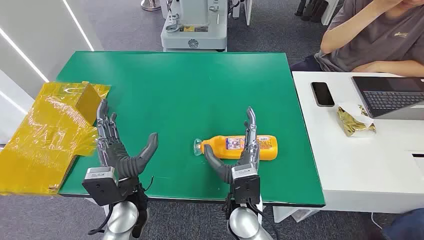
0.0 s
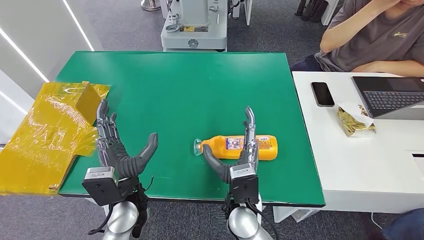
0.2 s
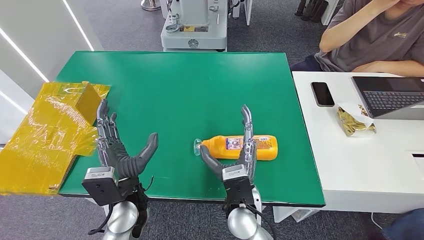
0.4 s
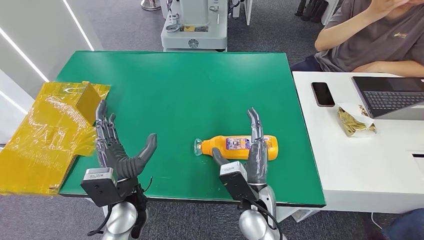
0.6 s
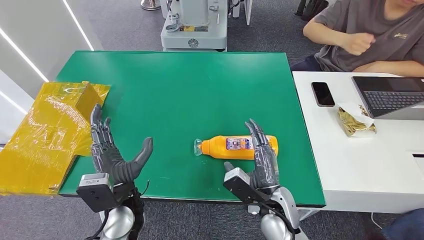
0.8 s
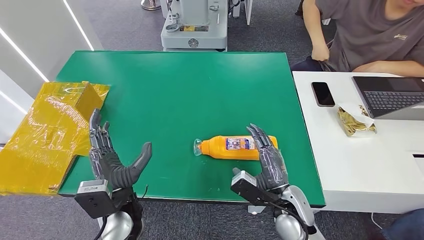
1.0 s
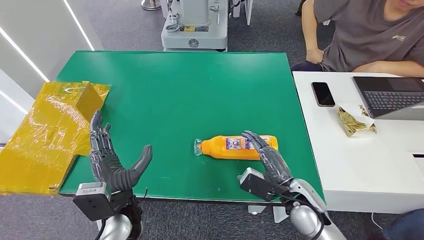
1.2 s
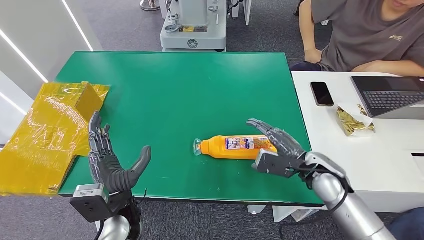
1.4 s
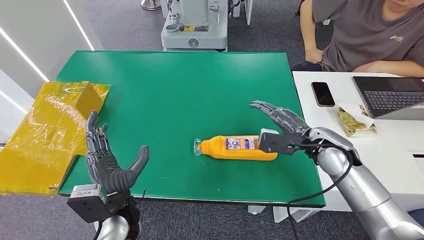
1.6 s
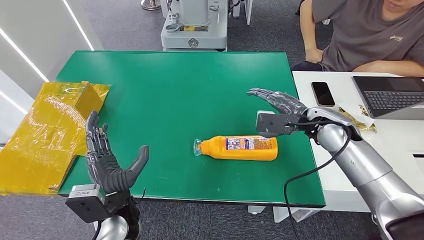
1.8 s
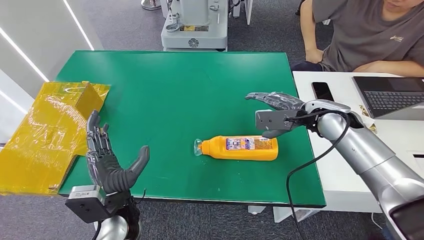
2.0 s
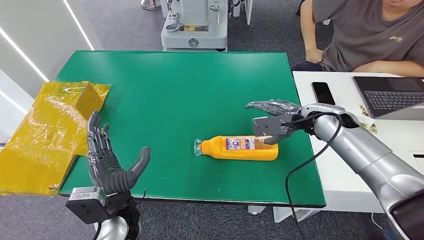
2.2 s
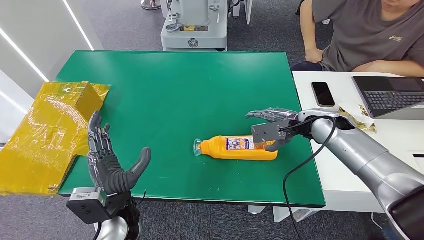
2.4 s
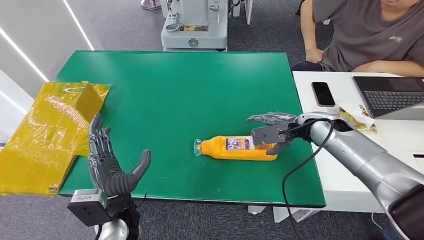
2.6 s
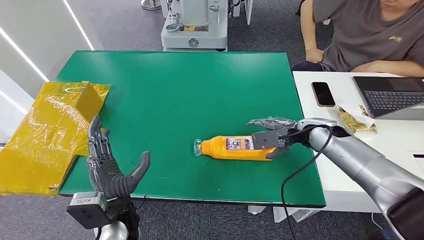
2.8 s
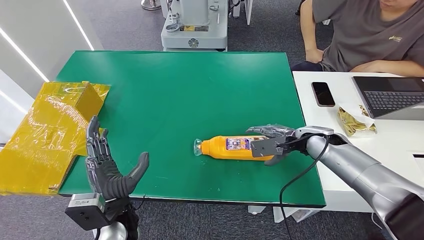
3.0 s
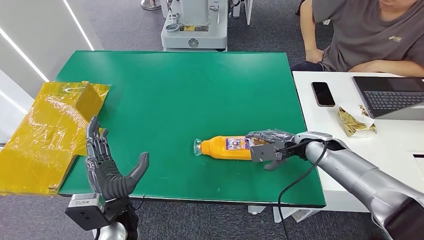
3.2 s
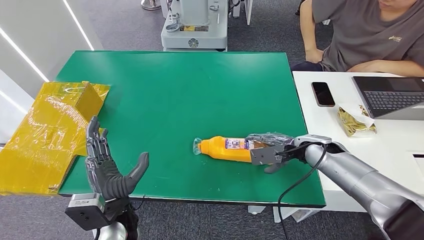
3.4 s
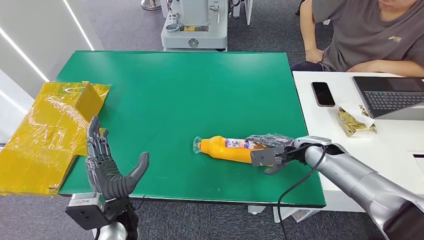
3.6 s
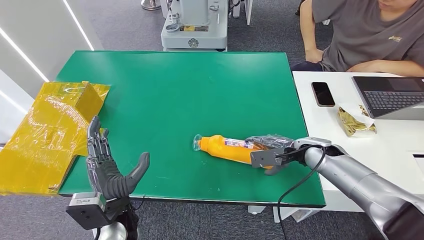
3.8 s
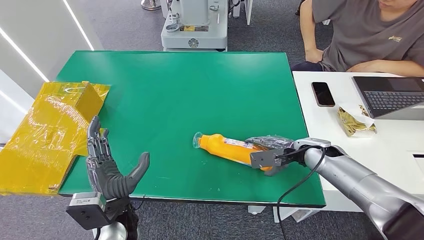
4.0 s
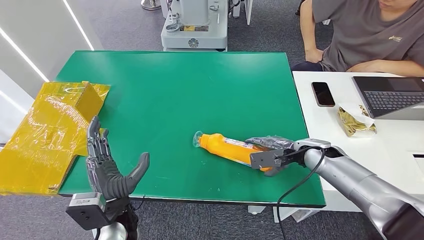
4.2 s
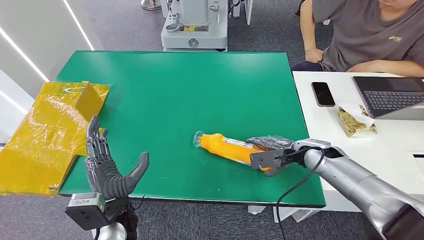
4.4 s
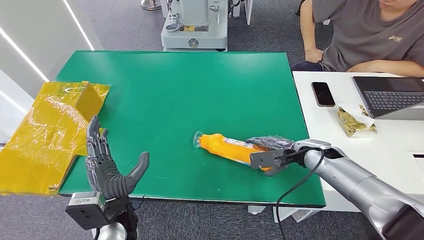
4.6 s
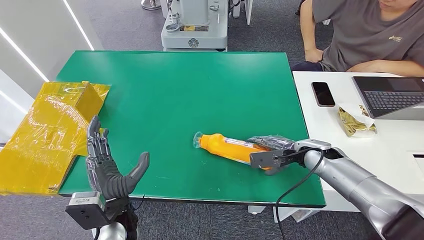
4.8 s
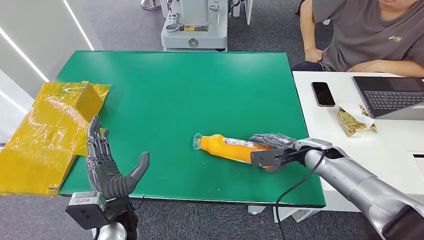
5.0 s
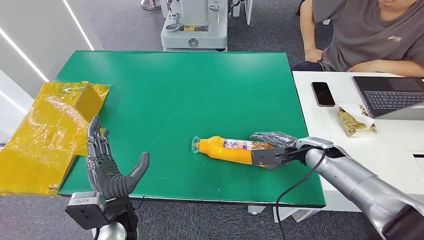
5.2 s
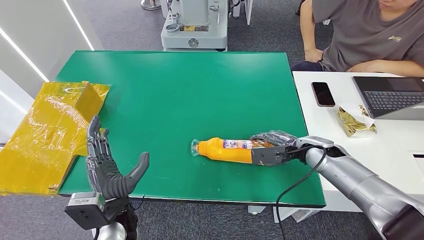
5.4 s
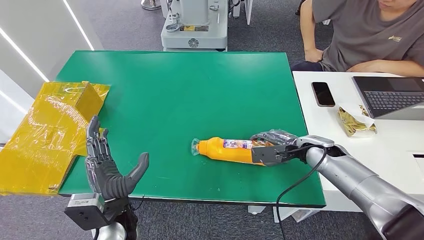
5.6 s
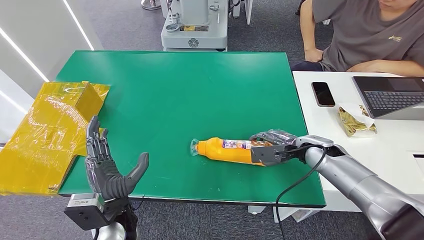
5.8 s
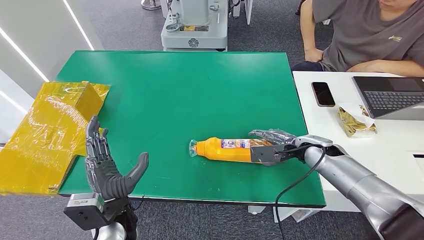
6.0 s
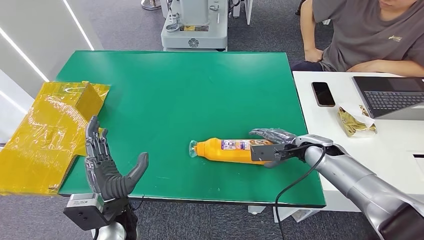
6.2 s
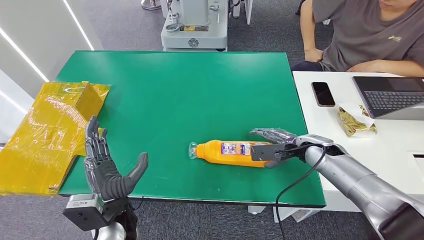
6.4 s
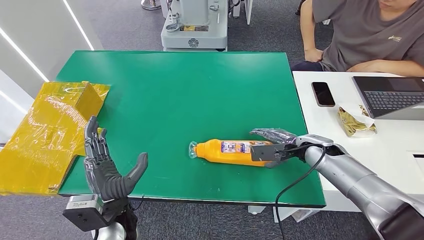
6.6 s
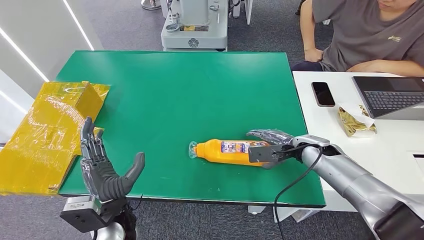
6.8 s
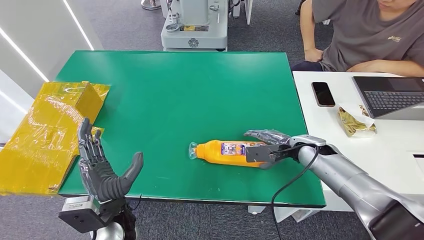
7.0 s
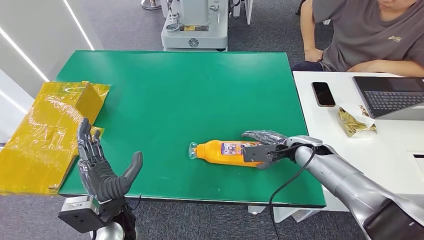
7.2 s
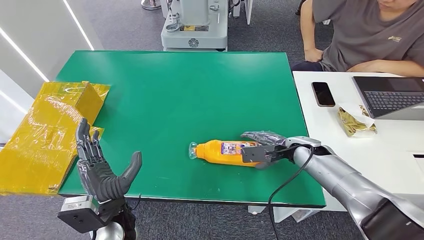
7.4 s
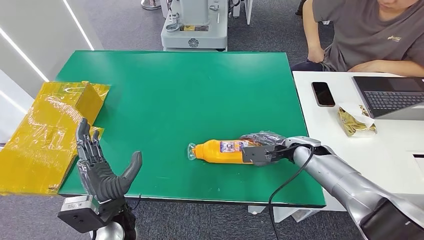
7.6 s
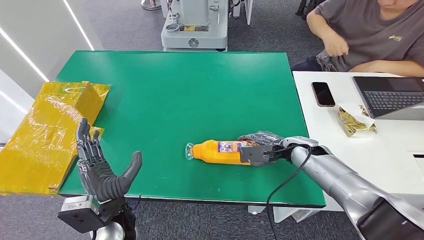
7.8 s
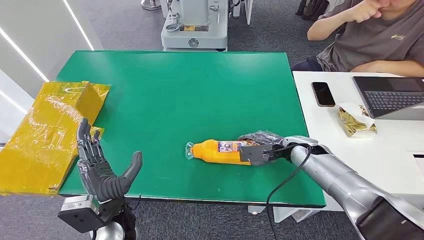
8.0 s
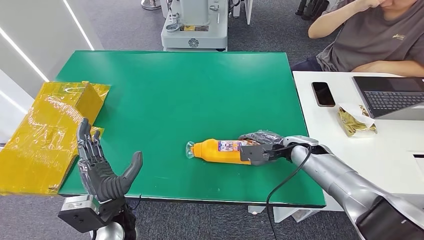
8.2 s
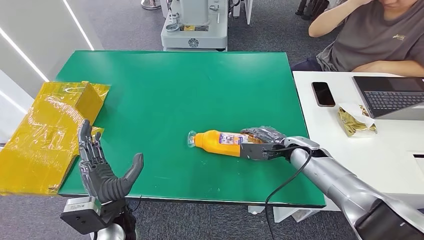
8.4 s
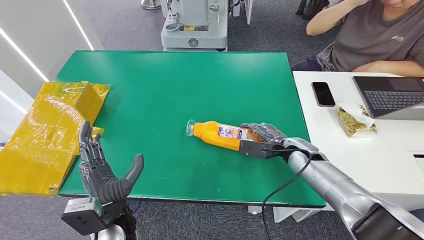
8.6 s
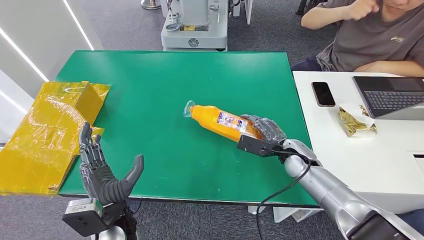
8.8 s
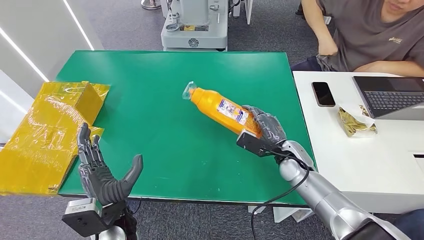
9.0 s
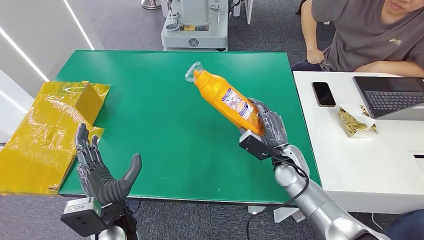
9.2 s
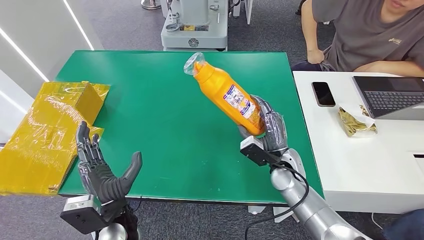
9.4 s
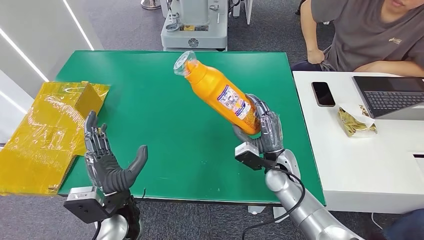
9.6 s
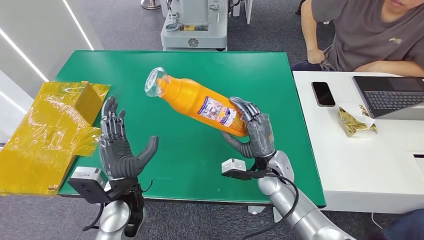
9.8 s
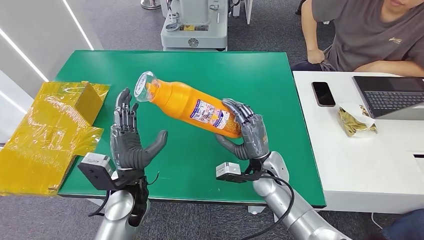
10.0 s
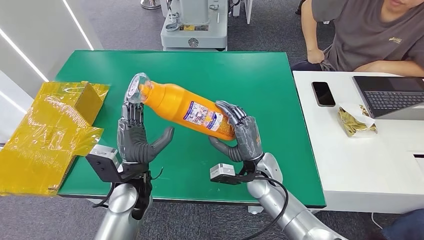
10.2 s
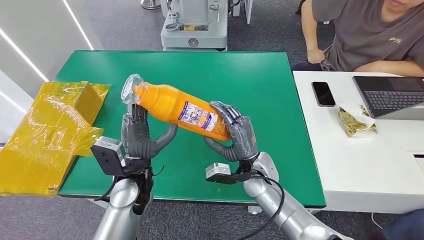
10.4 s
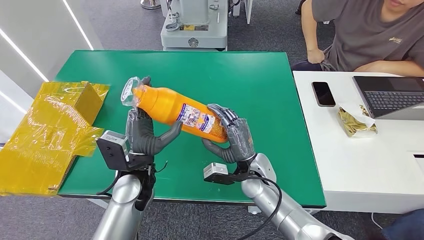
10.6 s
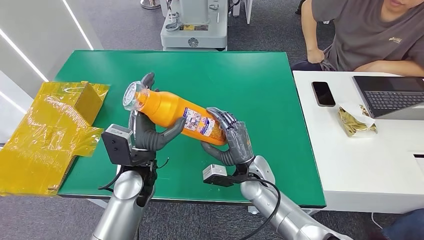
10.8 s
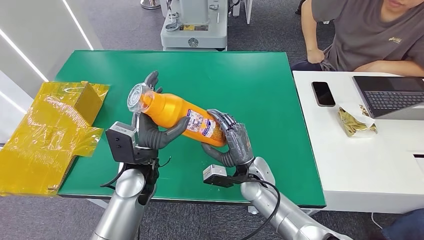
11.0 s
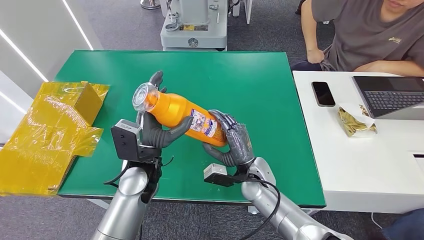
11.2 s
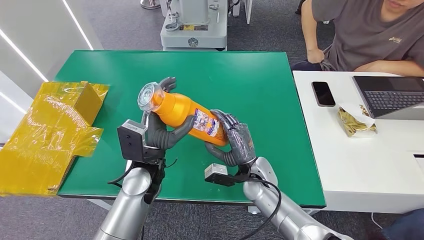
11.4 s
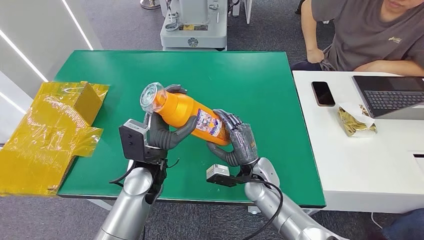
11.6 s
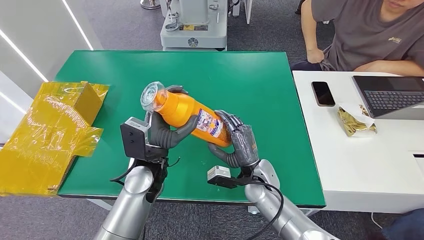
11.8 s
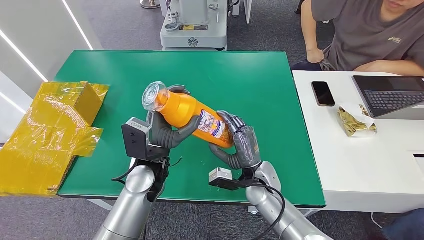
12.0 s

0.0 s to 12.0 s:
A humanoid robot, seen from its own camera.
Step, 0.0 to 10.0 s: Pick up the bottle from the table.
1.6 to 3.0 s: The right hand moves some 5 cm.
3.0 to 7.6 s: There are only small adjustments of the hands.
7.6 to 9.0 s: The right hand moves some 5 cm.
10.4 to 12.0 s: The hands make only small movements.

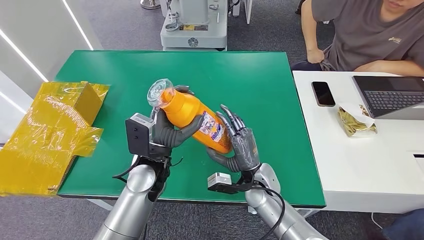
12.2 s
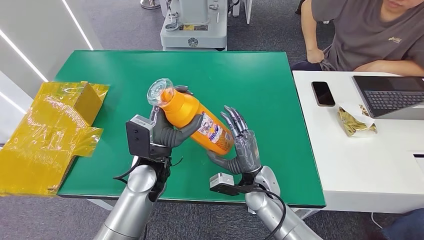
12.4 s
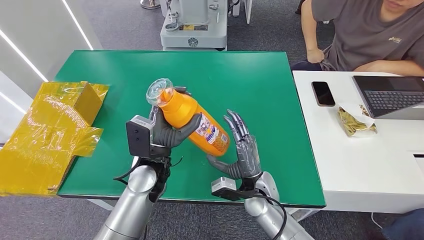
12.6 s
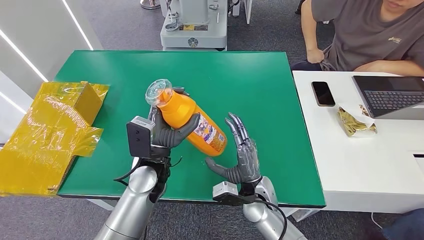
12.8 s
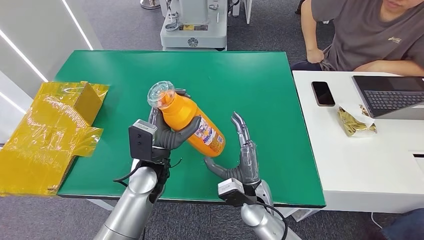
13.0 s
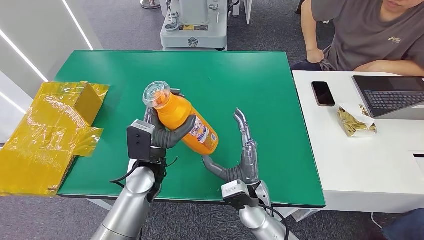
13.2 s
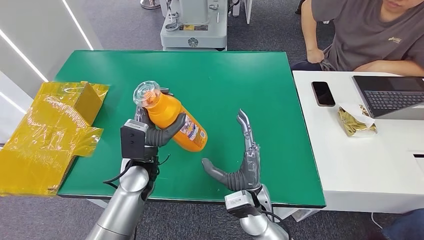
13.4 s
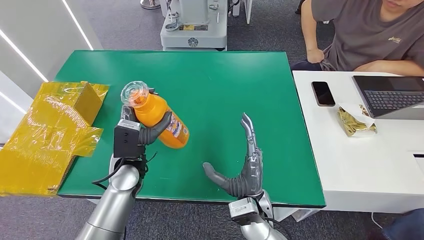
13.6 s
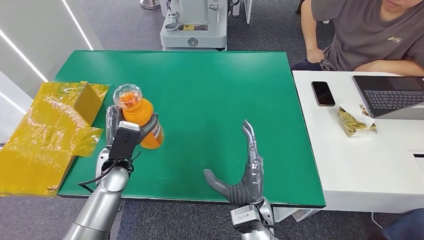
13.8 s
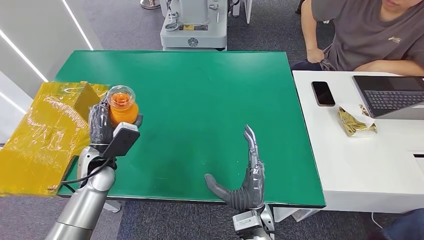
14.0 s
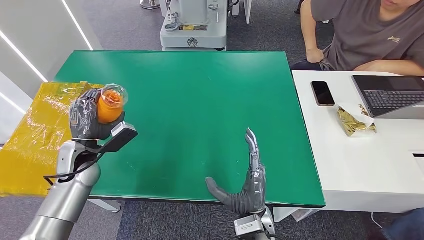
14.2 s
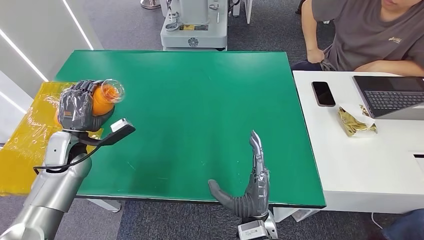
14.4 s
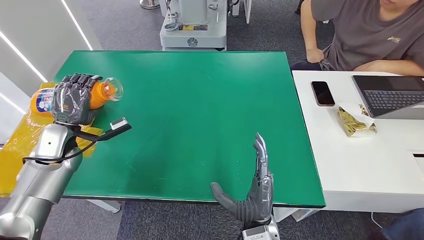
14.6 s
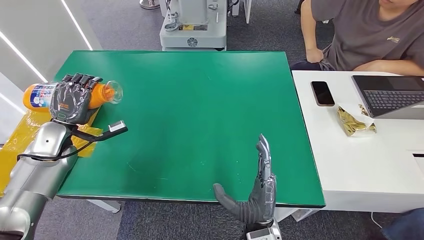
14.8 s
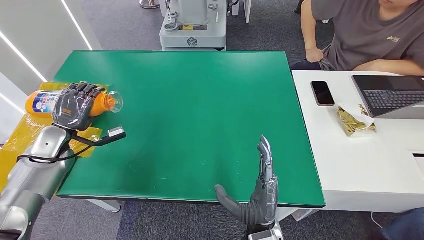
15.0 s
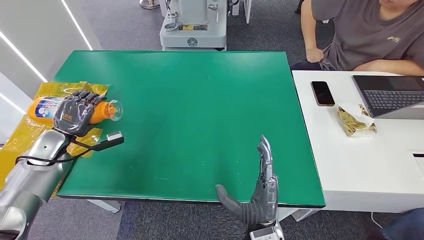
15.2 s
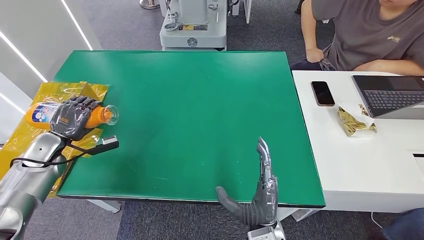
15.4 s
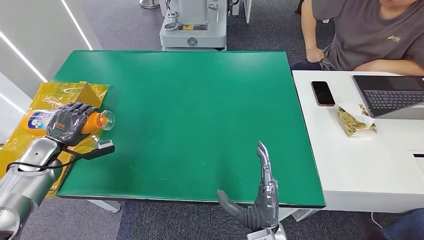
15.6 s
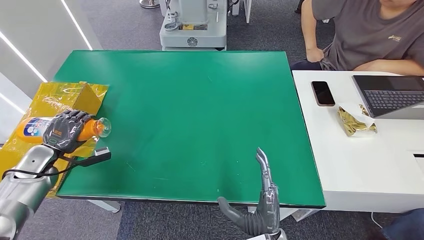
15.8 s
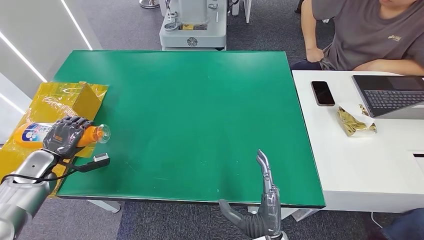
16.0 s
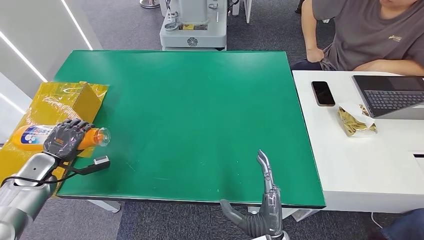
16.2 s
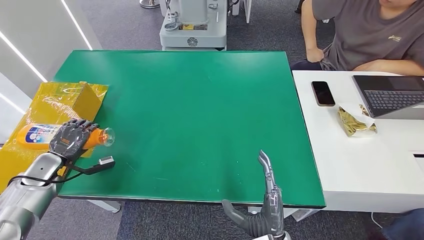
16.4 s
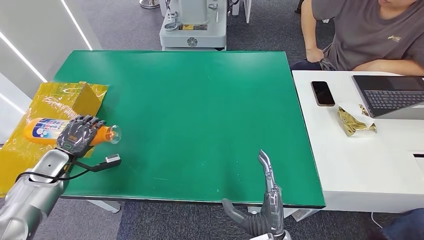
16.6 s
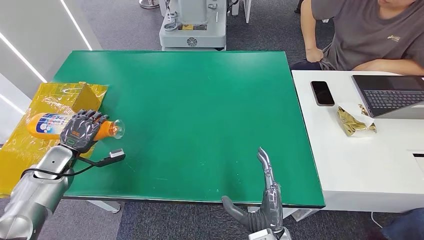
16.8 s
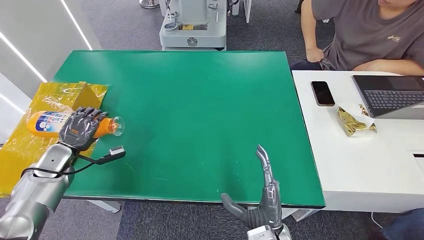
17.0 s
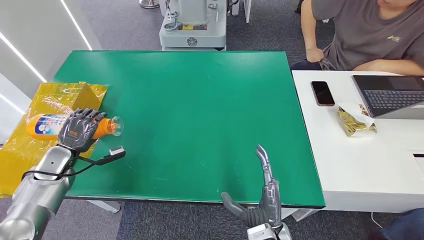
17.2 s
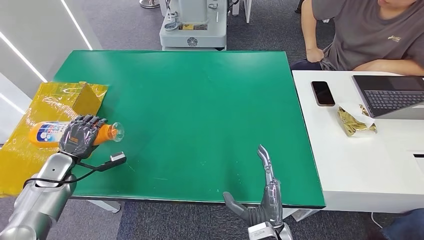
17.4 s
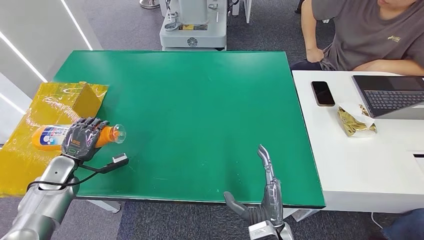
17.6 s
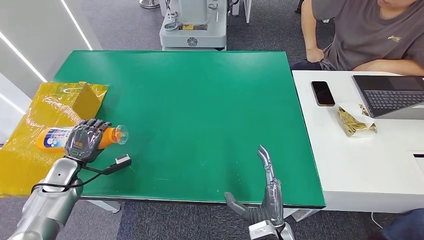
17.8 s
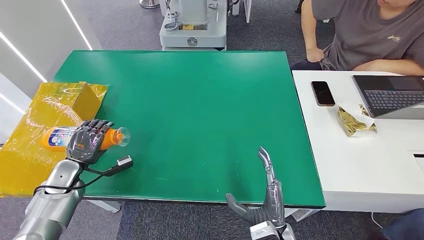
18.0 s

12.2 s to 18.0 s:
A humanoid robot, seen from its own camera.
12.2 to 13.6 s: The left hand travels to the left by about 5 cm; the right hand travels backward by about 10 cm.
13.6 to 15.0 s: The right hand is displaced backward by about 5 cm; the left hand is displaced to the left by about 25 cm.
15.0 to 16.6 s: The left hand travels downward by approximately 5 cm.
16.6 to 18.0 s: The left hand moves to the right, some 5 cm.
